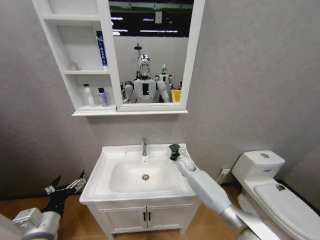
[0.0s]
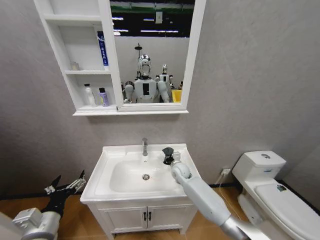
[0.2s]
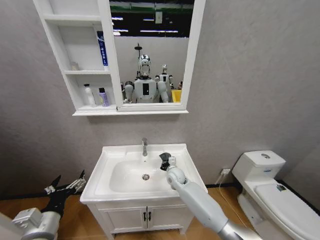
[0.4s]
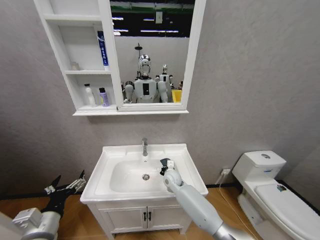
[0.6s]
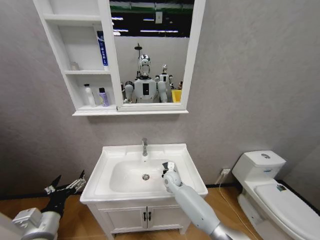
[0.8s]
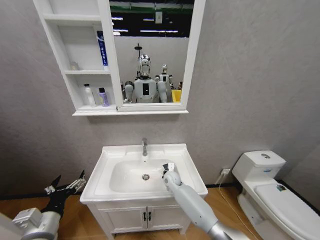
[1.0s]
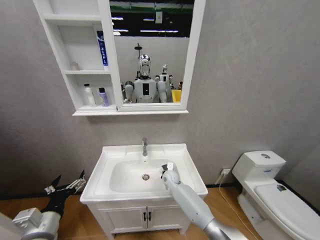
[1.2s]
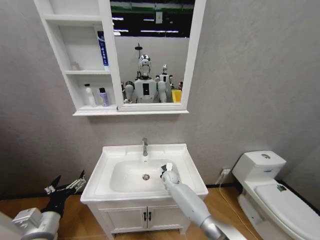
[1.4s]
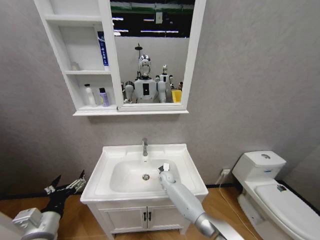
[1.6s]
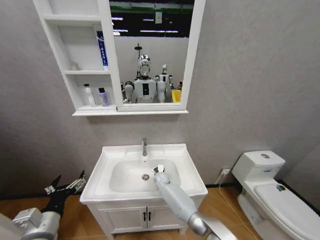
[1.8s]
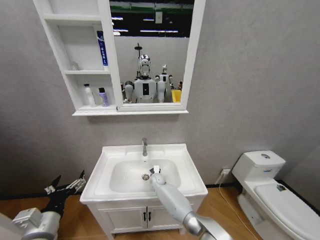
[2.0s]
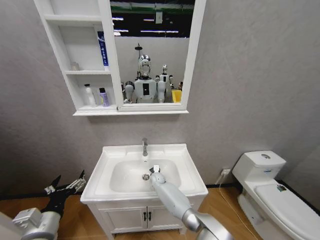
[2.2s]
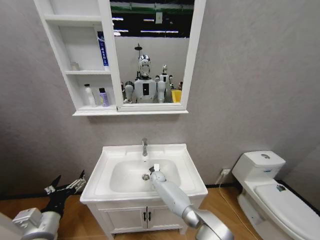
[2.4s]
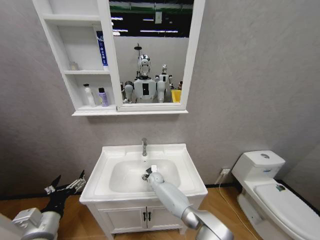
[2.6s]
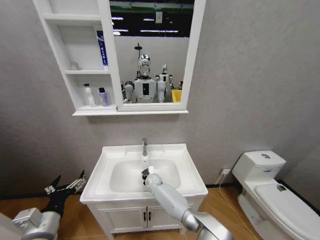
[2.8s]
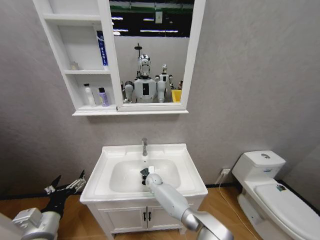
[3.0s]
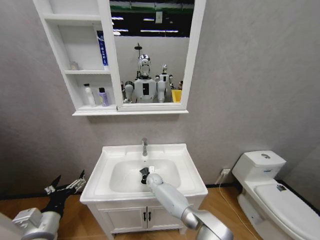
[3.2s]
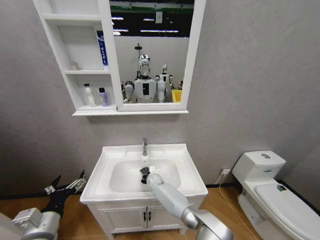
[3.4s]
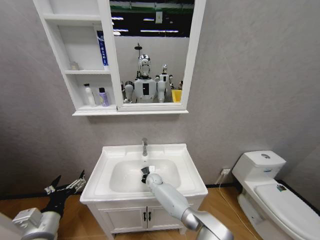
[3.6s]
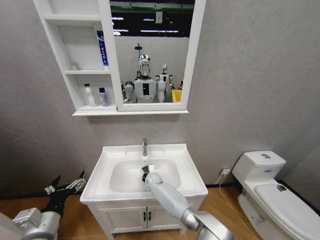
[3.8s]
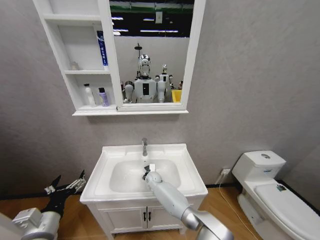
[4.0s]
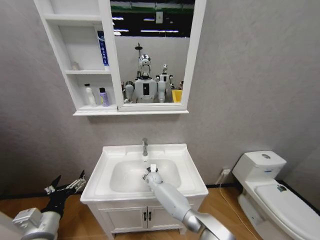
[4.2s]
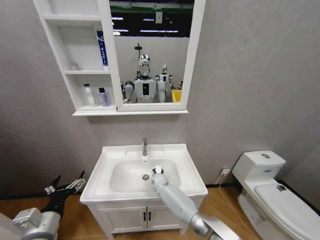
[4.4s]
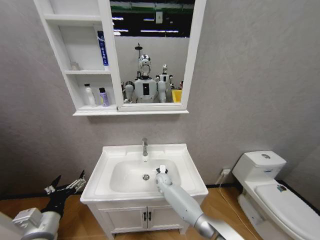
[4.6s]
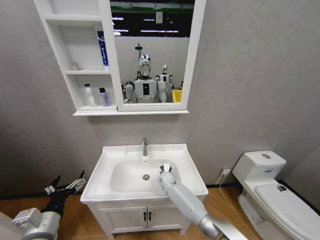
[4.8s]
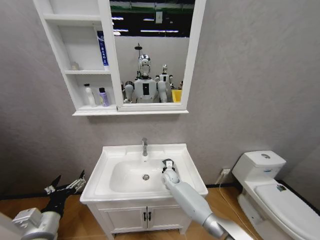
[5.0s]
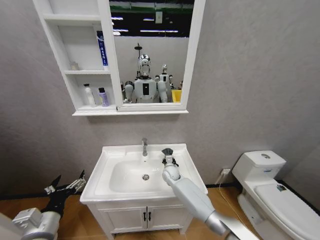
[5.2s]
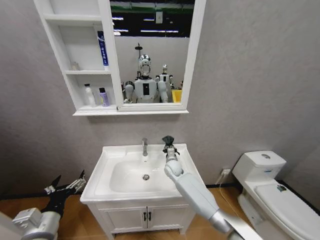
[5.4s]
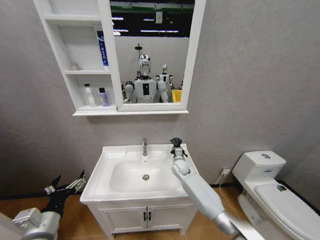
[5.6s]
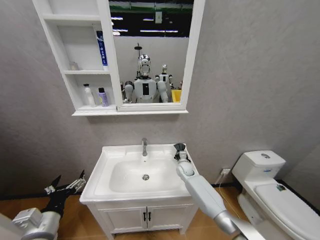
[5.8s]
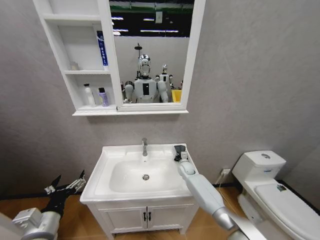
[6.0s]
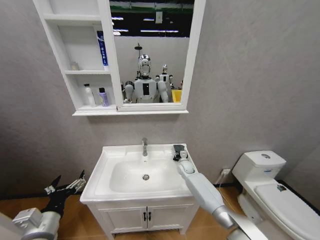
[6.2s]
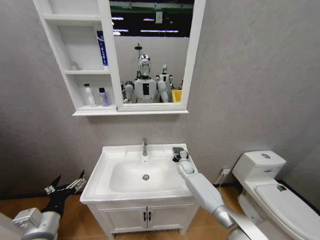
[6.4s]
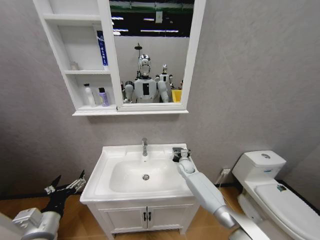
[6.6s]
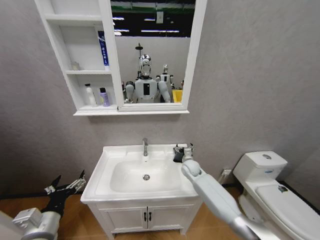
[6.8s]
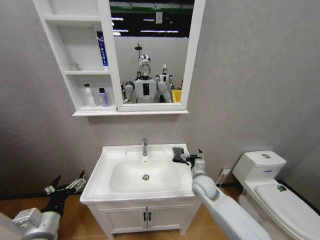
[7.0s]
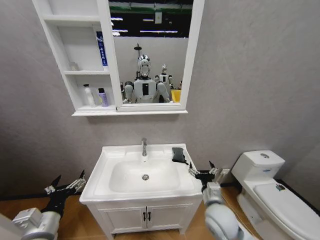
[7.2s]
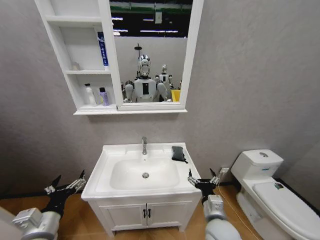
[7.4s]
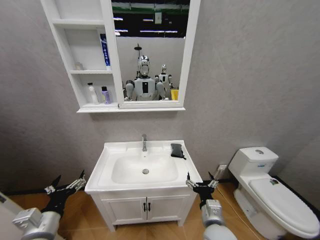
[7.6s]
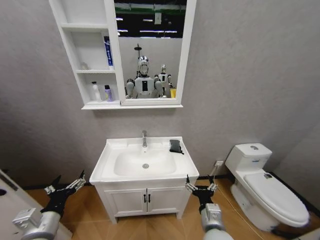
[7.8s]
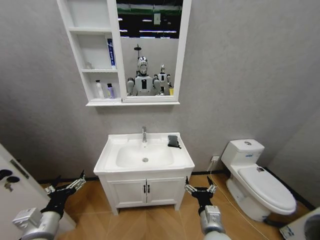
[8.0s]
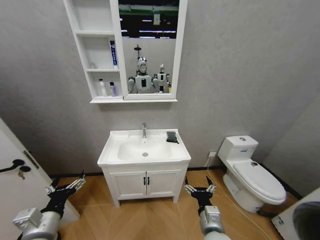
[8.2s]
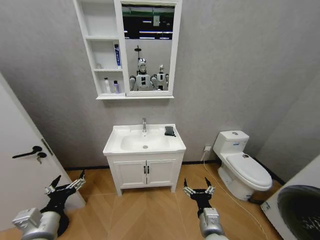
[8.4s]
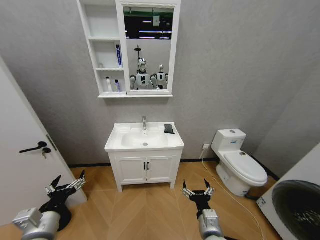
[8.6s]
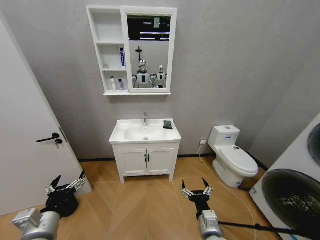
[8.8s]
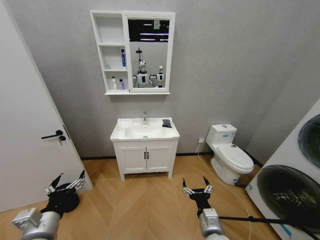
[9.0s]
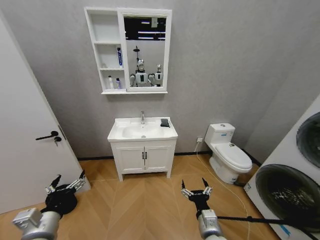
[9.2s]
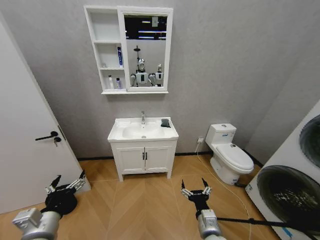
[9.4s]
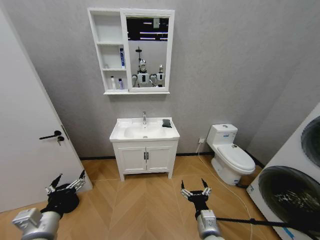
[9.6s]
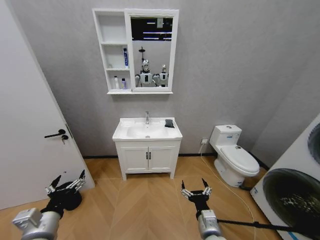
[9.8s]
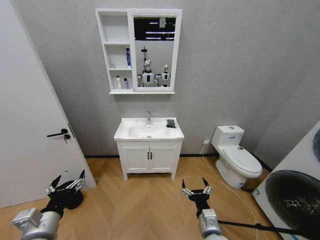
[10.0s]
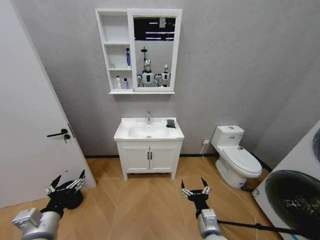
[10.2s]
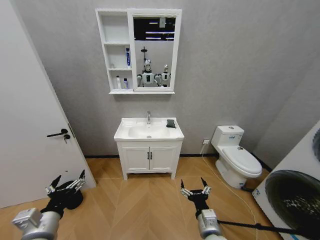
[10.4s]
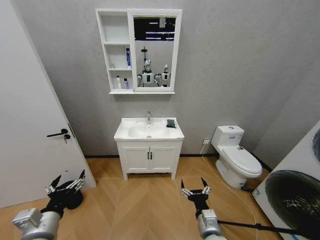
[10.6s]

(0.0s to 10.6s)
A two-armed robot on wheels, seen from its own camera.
Task of the whole recording: Move facial cleanser and shampoo from washbasin to cabinet, then wipe washbasin with towel.
0.0s - 1.6s: The right gripper goes some 15 cm to the left and downward.
1.6s - 3.0s: The right gripper goes some 10 cm to the left.
3.0s - 4.6s: The right gripper heads to the right, covering some 5 cm.
4.6s - 6.0s: The right gripper travels to the right by roughly 15 cm.
6.0s - 7.6s: The right gripper moves backward, some 35 cm, and opens its fingers.
9.0s - 10.6s: The two grippers keep their place.

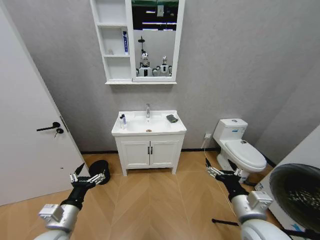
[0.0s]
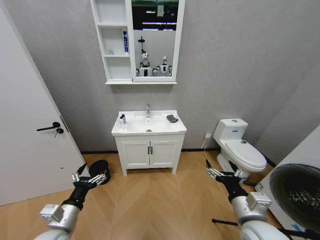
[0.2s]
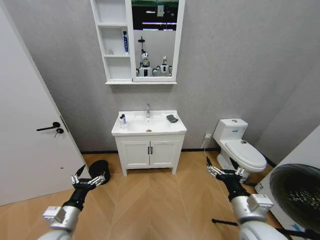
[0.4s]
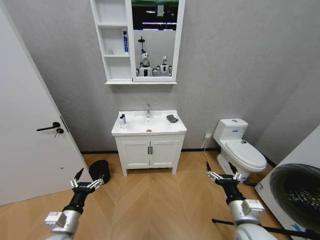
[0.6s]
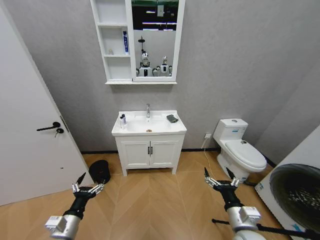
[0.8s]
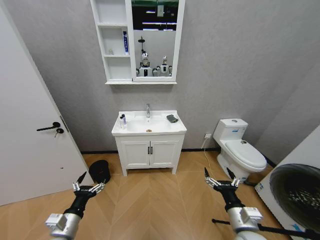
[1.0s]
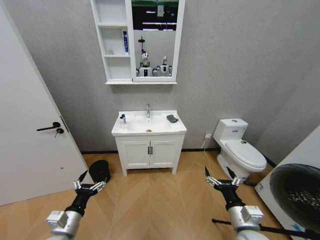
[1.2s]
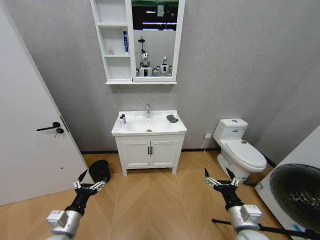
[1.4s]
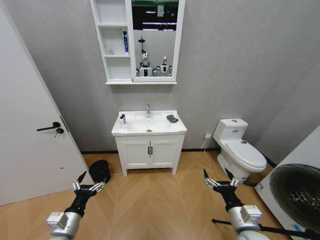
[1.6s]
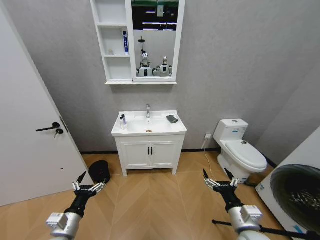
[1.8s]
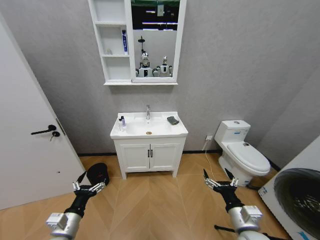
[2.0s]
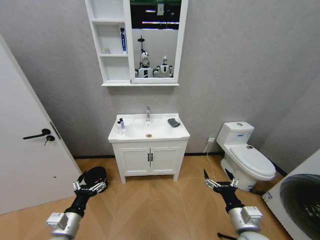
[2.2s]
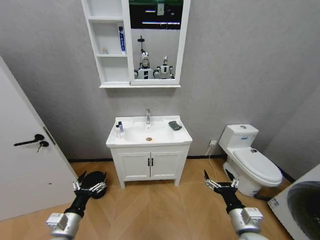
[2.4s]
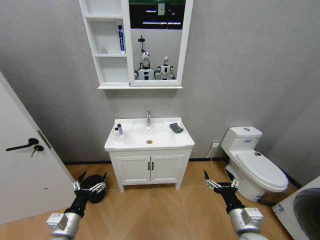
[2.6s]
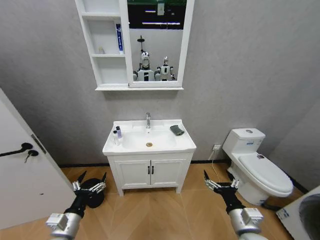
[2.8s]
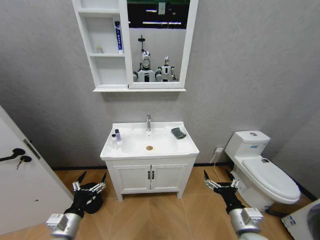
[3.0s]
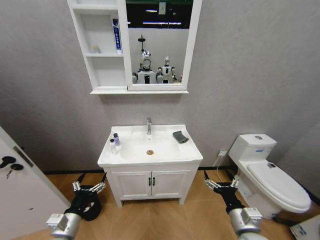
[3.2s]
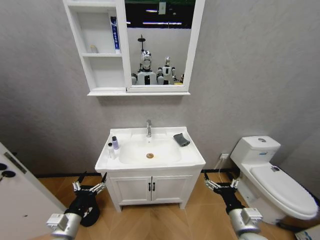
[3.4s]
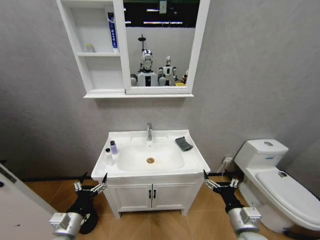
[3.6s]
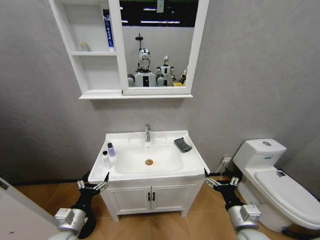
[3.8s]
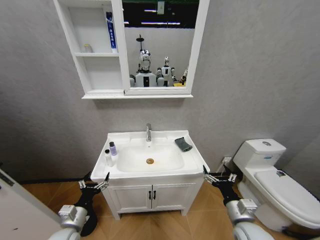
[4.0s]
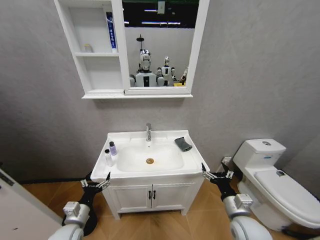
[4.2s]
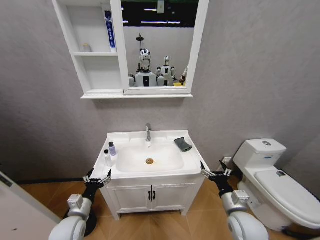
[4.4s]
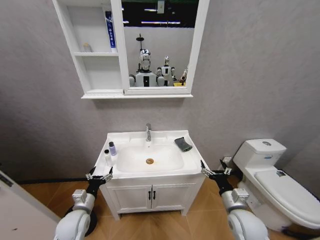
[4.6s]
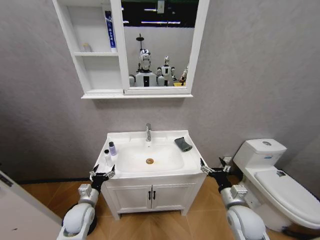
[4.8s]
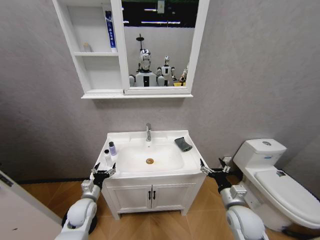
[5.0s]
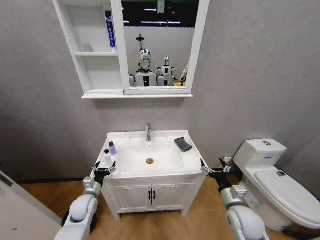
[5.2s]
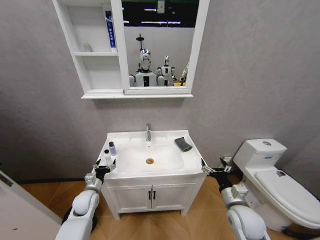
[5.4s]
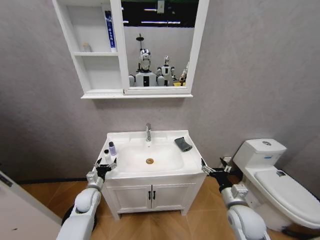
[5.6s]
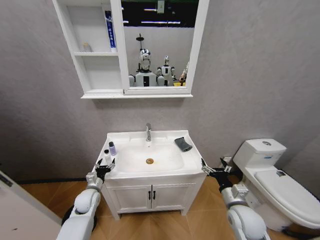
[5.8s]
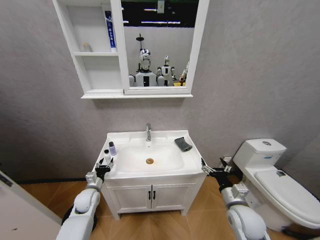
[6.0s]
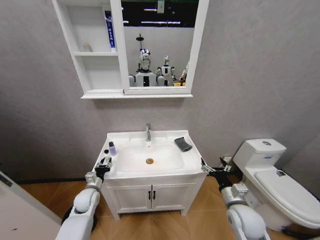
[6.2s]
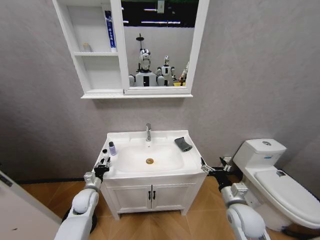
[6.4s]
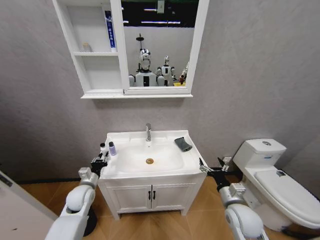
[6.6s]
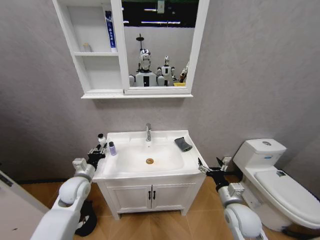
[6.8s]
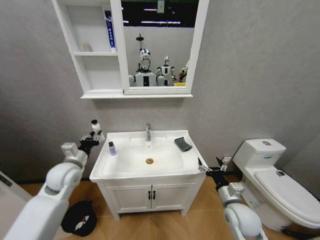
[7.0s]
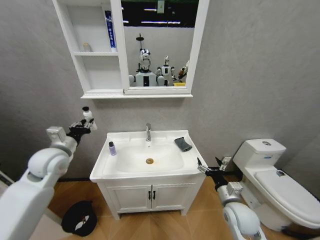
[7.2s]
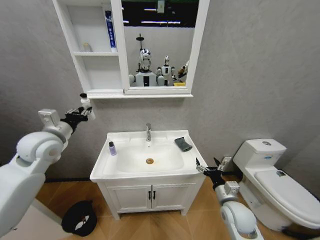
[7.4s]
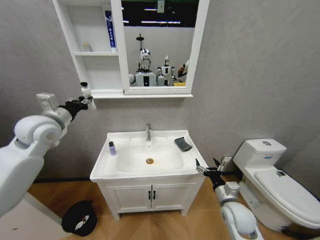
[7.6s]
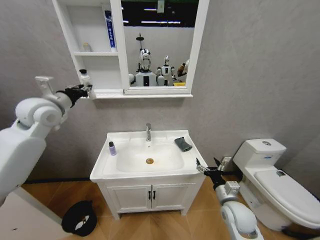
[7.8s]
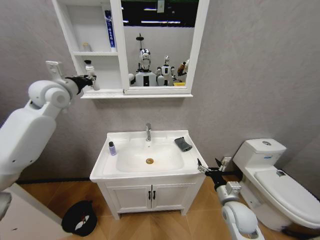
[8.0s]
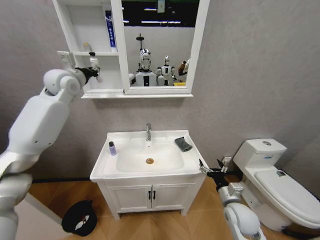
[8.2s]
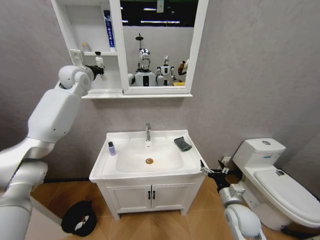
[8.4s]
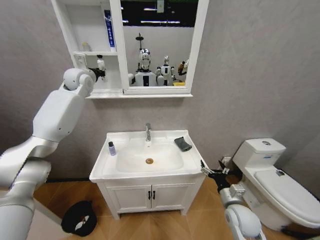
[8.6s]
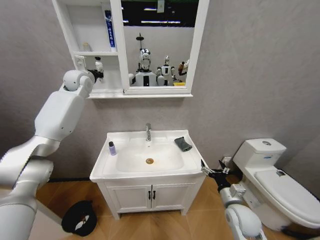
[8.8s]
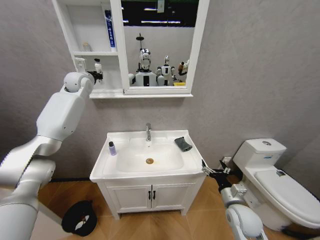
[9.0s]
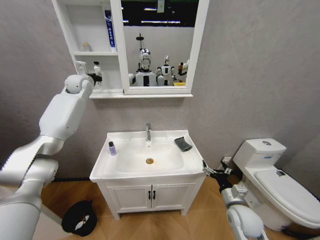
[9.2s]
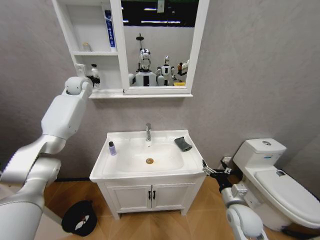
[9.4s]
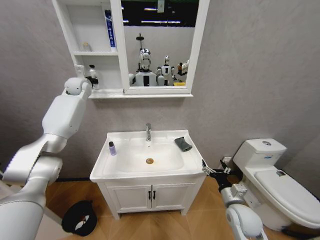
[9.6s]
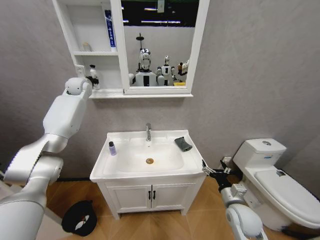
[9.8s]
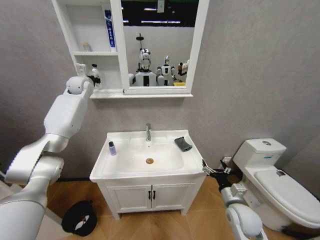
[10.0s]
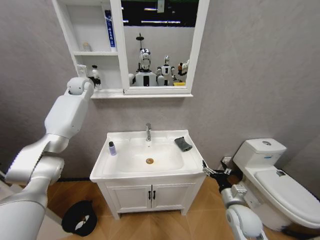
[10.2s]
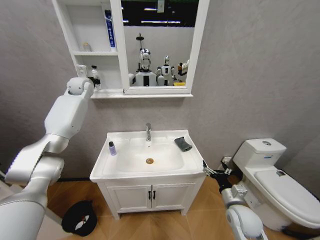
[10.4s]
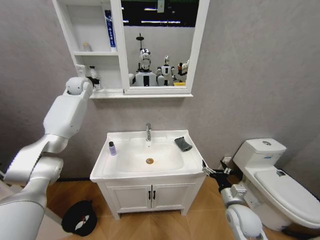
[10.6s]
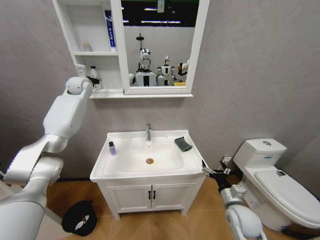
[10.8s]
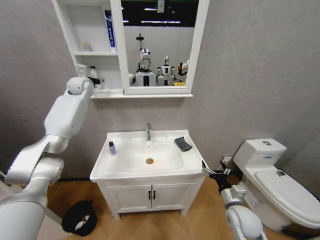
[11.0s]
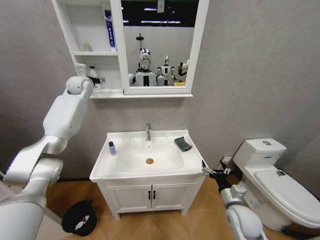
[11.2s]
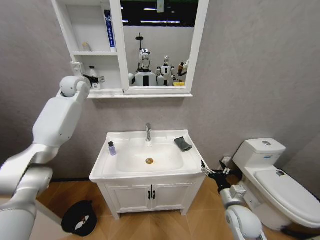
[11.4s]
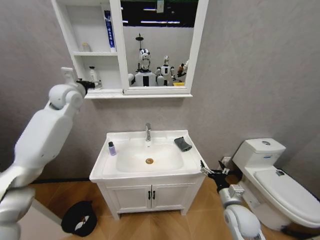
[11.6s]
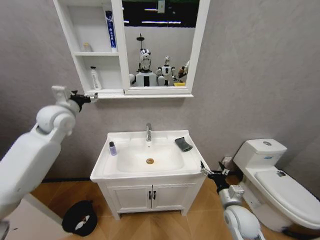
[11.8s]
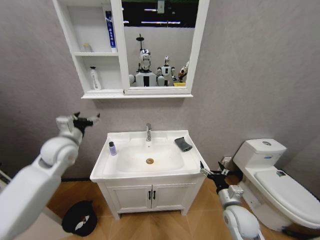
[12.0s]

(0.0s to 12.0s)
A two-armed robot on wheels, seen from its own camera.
Task of the whole recording: Move facial cleanser and shampoo from washbasin to cabinet, then wipe washbasin with towel.
3.0s - 4.4s: The grippers both shift forward by about 5 cm.
4.4s - 6.0s: The left gripper shifts some 10 cm forward.
6.0s - 7.6s: The left gripper heads upward, covering approximately 35 cm, and closes.
7.6s - 9.0s: The left gripper heads forward, covering roughly 25 cm.
9.0s - 10.4s: The grippers move only a little.
10.4s - 12.0s: The left gripper goes some 30 cm backward and downward, and opens up.
